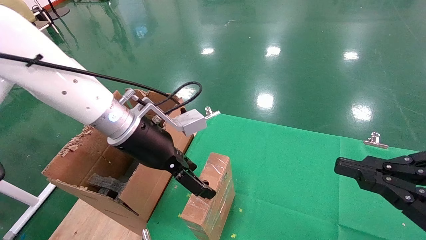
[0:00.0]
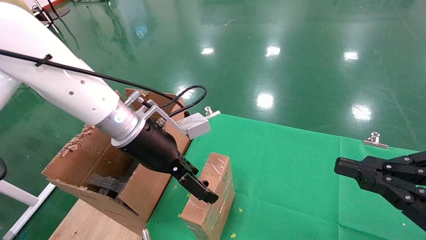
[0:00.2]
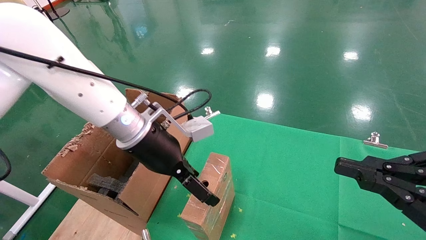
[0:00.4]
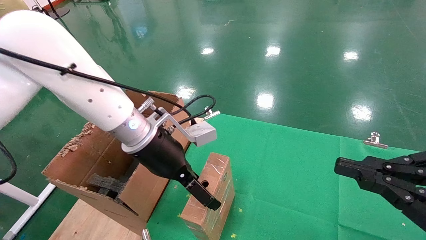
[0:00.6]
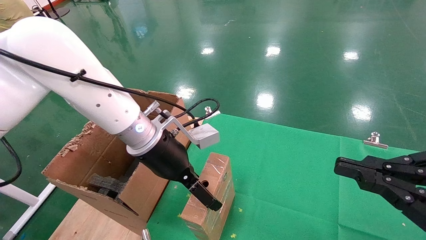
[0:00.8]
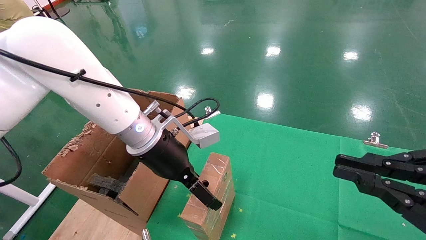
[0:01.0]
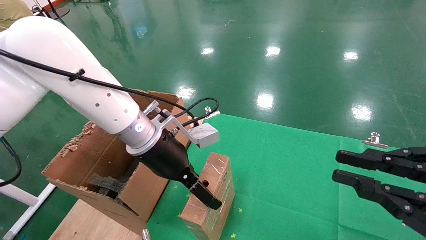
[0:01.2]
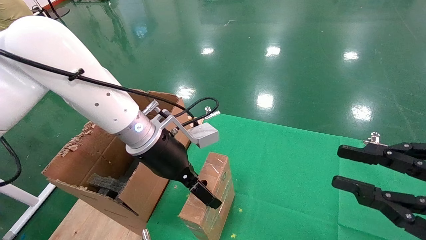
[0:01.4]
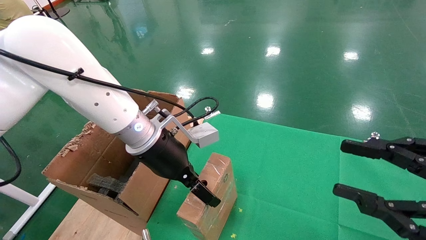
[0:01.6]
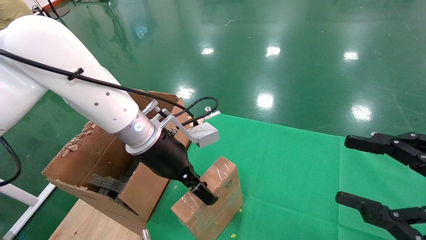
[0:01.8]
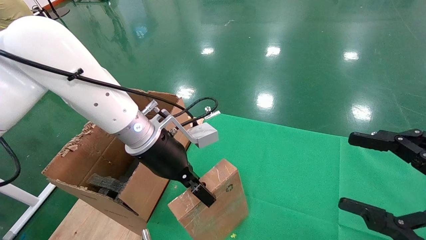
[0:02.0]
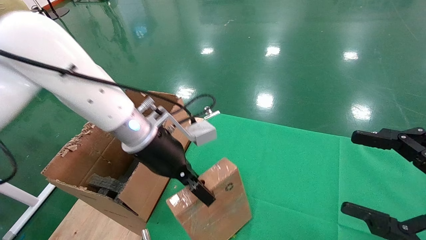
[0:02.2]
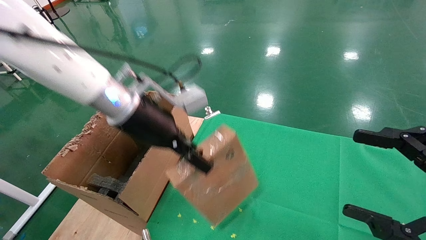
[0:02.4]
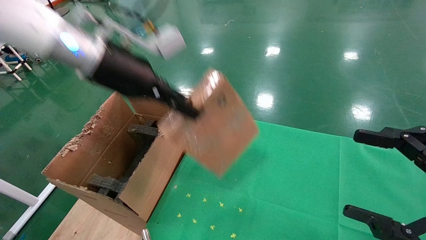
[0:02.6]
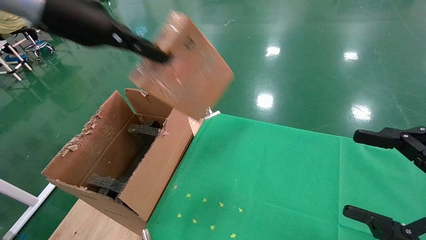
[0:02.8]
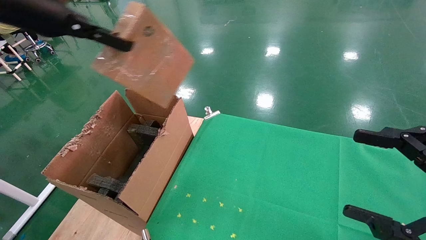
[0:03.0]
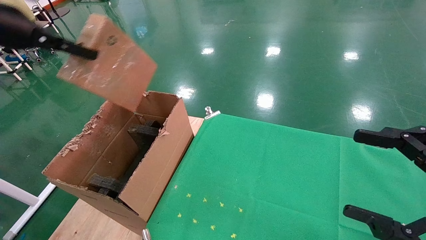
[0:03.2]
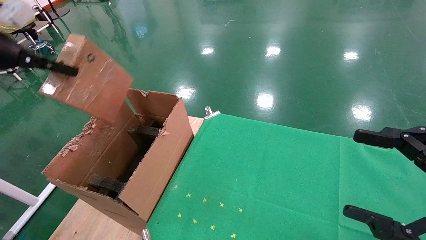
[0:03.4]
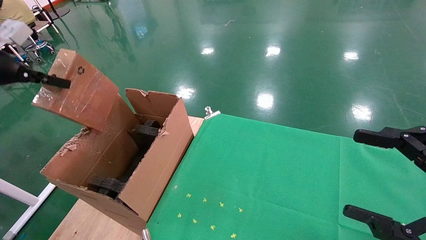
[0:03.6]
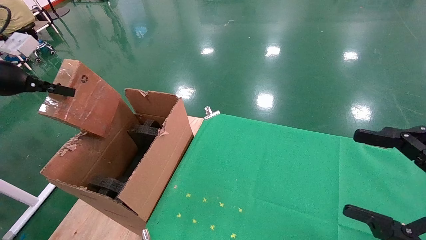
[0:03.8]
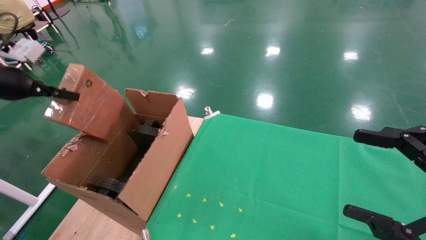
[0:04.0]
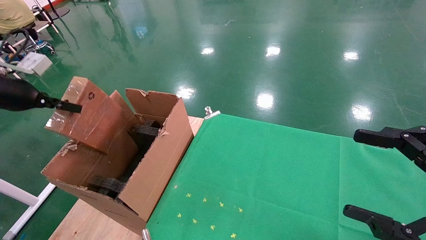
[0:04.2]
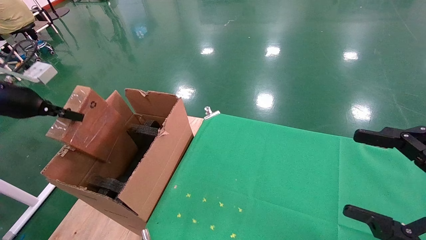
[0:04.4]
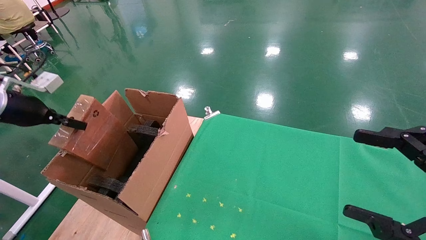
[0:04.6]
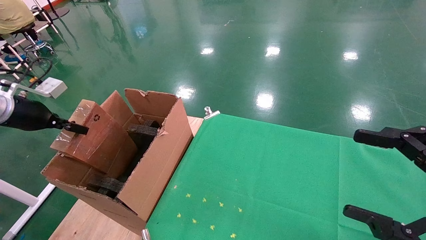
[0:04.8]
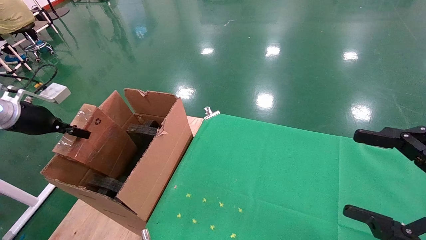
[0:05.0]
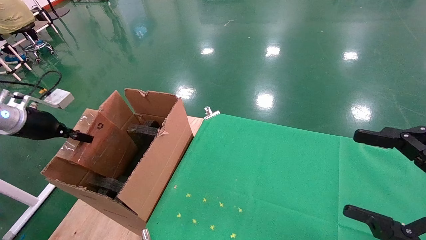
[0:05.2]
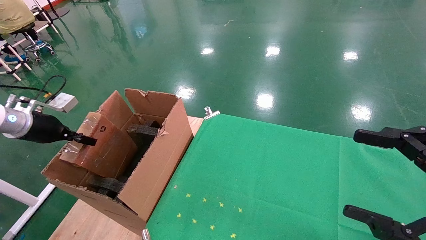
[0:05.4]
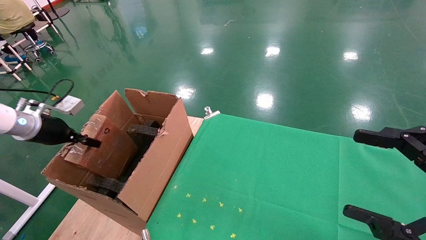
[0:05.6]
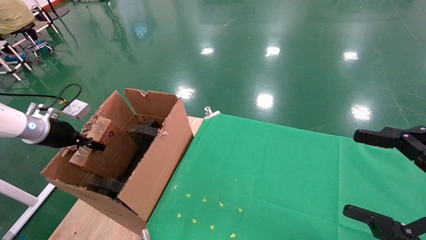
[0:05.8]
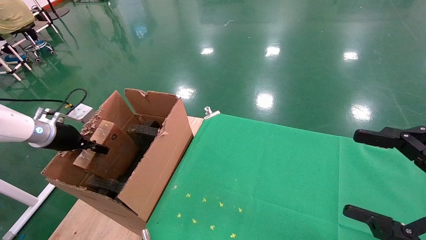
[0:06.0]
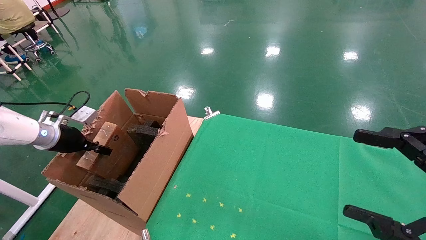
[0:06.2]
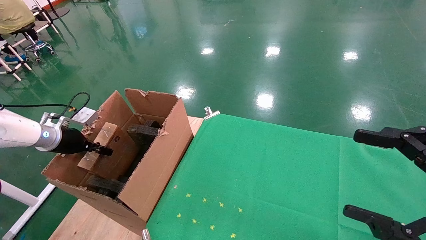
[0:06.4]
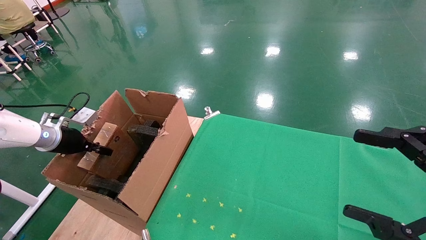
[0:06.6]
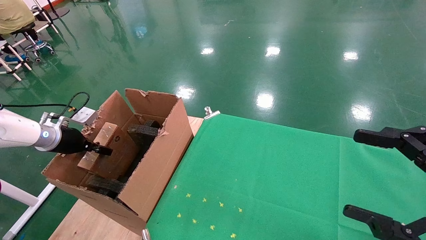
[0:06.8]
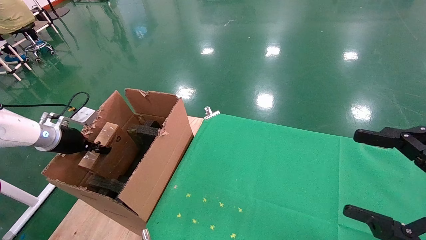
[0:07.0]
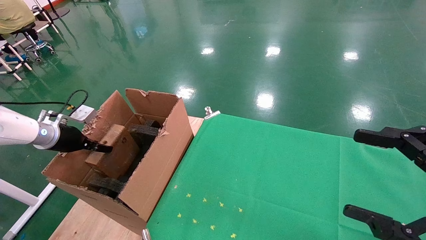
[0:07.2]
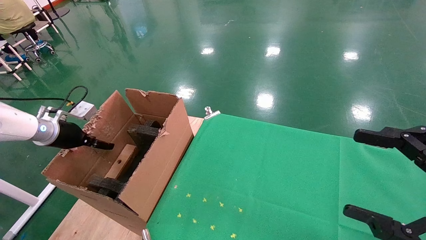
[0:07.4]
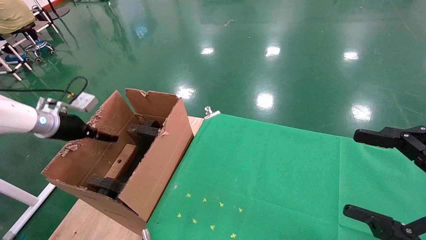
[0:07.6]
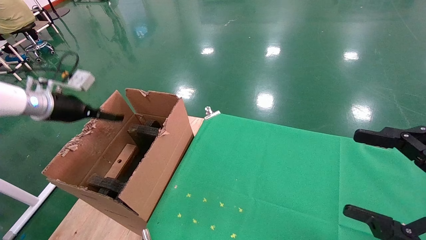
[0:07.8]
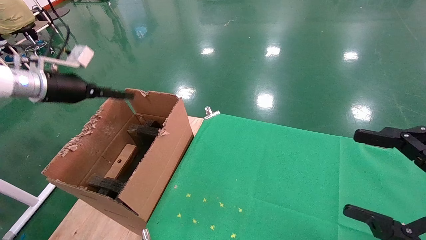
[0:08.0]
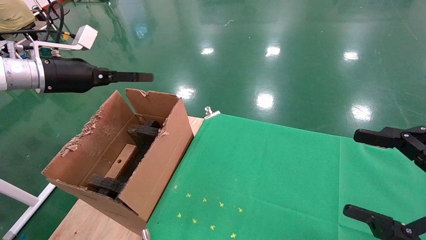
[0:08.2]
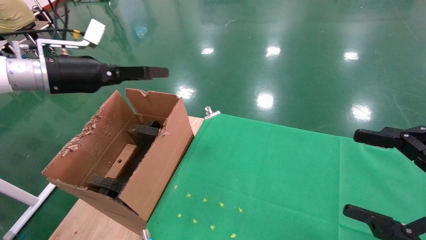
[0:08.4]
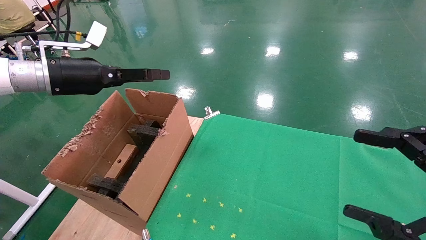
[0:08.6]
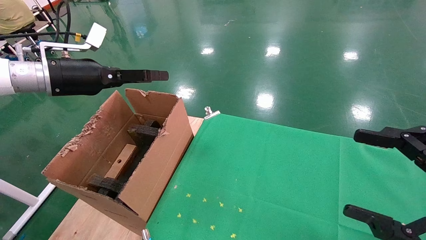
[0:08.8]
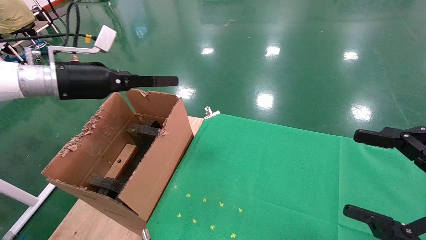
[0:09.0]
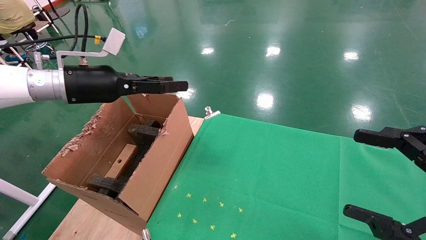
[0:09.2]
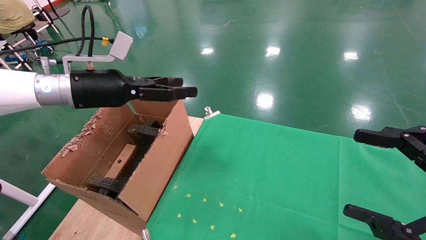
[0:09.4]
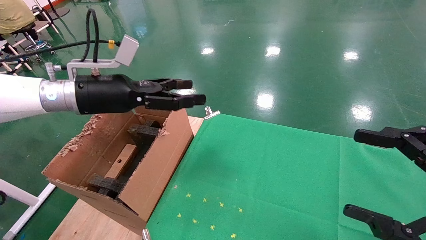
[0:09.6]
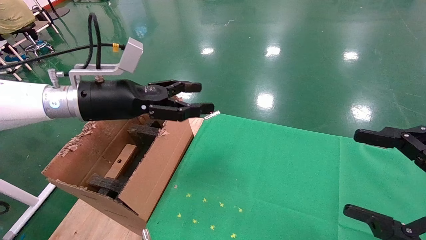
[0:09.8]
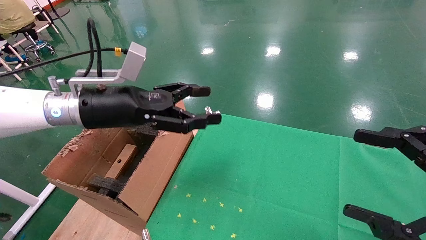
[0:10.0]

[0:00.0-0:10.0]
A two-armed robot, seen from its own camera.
Task of the whole recording: using a robotic arm to pick up a cardboard box and palace it the carton.
Step, 0:00.0 to 0:02.0: Pick up the mouse and the power cord paper box.
Step, 0:02.2 to 0:08.2: Place the mouse and the power cord paper box into the container.
0:00.0 to 0:01.4: The grippers make only small movements.
0:01.4 to 0:02.8: The left gripper travels upward and to the left by some 25 cm, and closes up; the right gripper opens.
0:02.8 to 0:04.2: The left gripper heads to the left and downward, covering about 25 cm.
0:04.2 to 0:05.8: The left gripper goes about 15 cm downward and forward.
0:05.8 to 0:07.2: There are only small adjustments of the grippers.
0:07.2 to 0:08.6: The left gripper travels upward and to the right by approximately 20 cm, and opens up.
0:08.6 to 0:10.0: The left gripper heads to the right, covering approximately 10 cm.

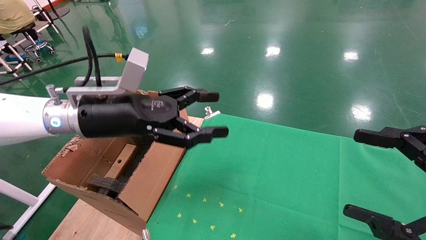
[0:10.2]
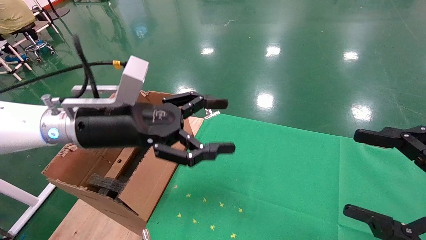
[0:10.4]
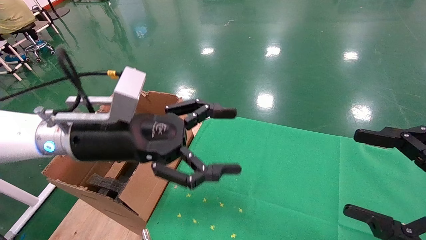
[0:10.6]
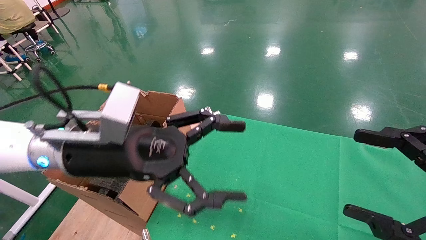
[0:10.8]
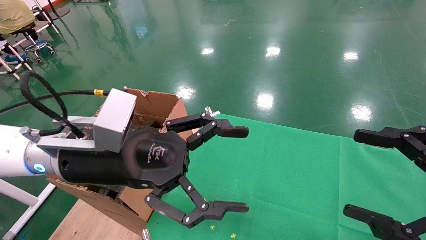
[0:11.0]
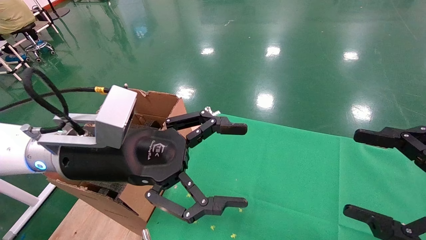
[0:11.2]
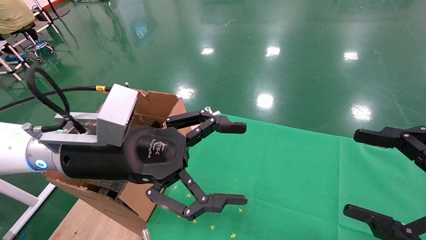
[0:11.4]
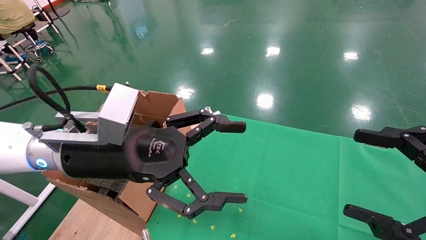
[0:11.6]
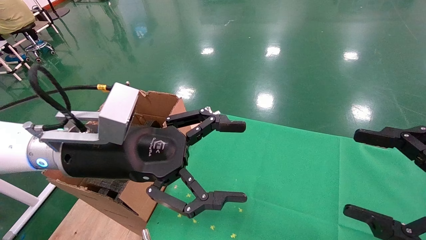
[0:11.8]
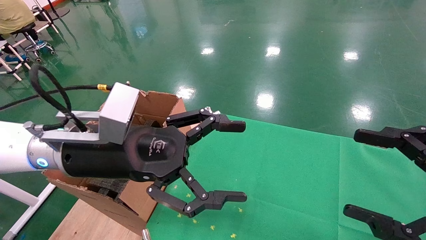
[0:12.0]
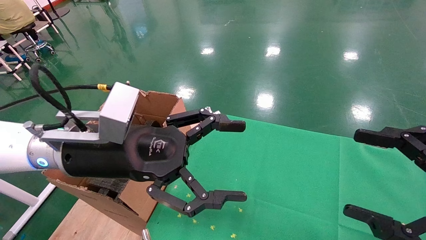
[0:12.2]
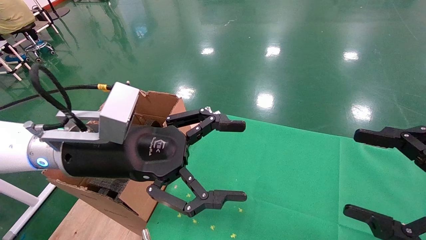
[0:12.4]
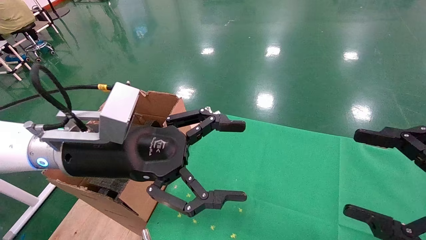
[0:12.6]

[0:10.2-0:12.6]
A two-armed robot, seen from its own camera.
Task of the whole recording: using a robotic arm to pick up a cardboard box and palace it the carton.
0:10.2 to 0:11.4: The left gripper goes about 5 cm backward.
0:11.4 to 0:12.6: The two grippers keep their place.

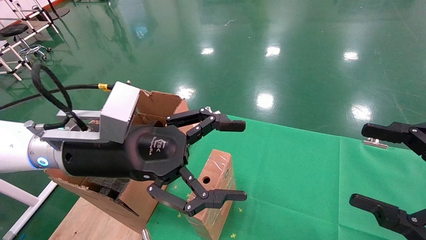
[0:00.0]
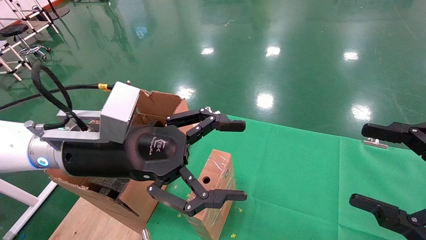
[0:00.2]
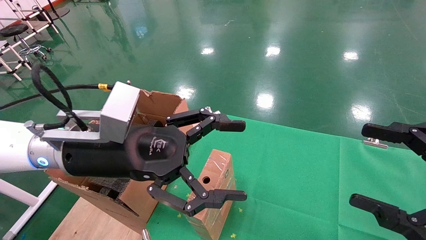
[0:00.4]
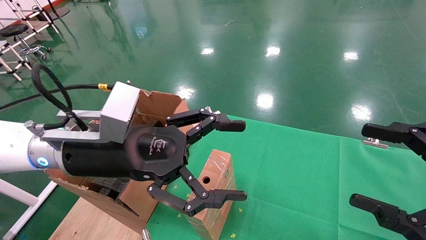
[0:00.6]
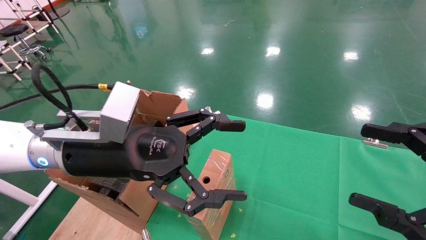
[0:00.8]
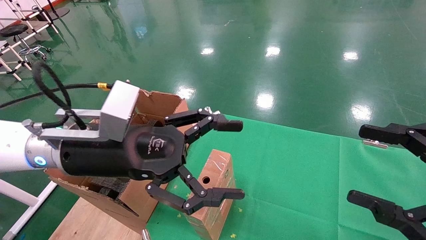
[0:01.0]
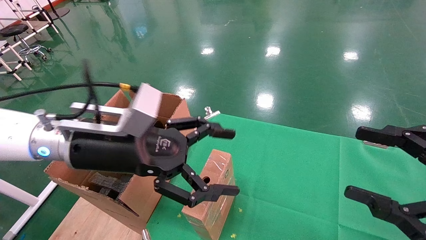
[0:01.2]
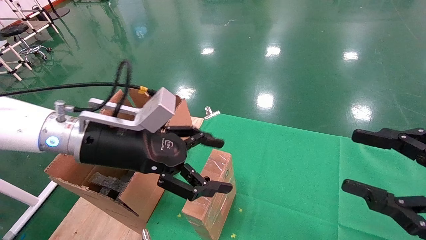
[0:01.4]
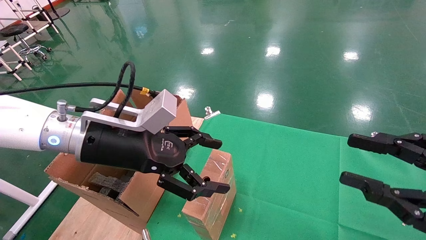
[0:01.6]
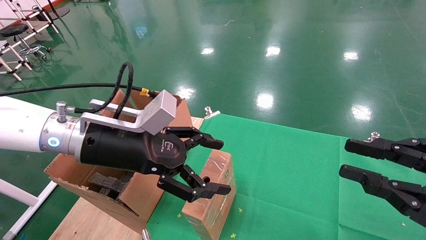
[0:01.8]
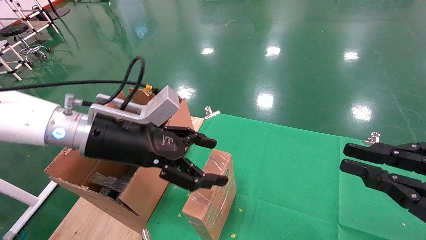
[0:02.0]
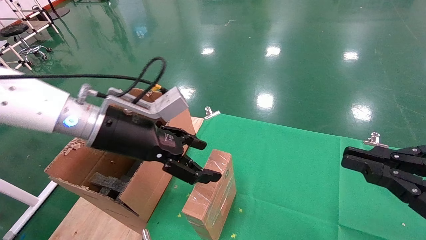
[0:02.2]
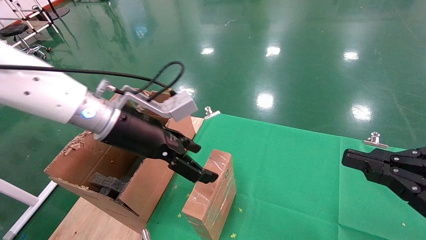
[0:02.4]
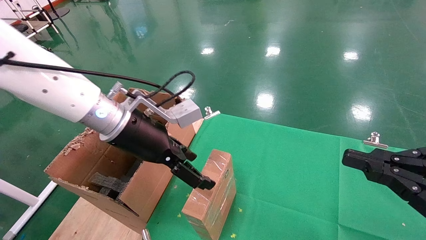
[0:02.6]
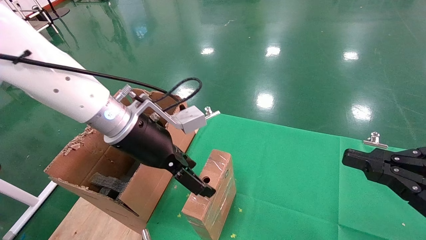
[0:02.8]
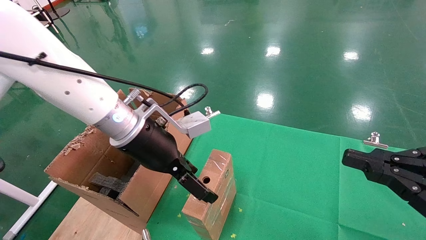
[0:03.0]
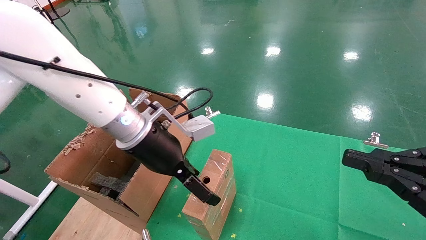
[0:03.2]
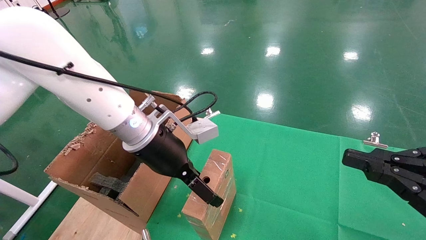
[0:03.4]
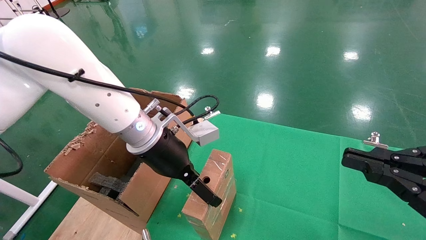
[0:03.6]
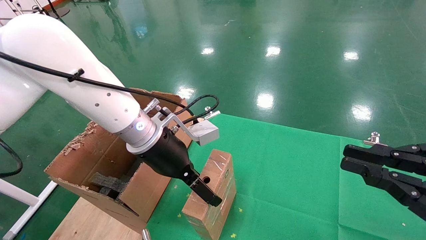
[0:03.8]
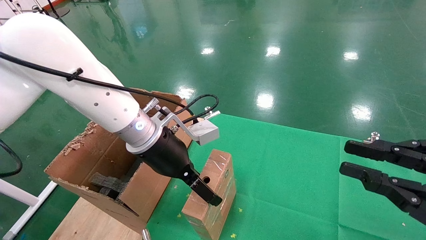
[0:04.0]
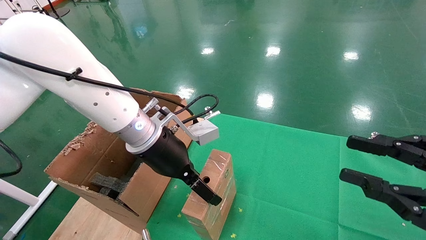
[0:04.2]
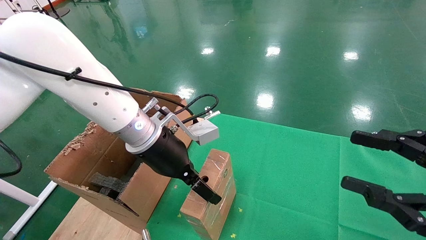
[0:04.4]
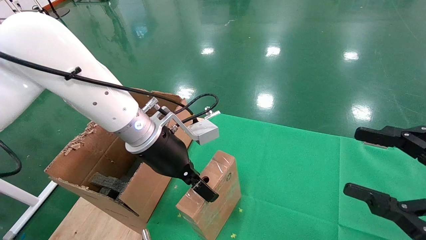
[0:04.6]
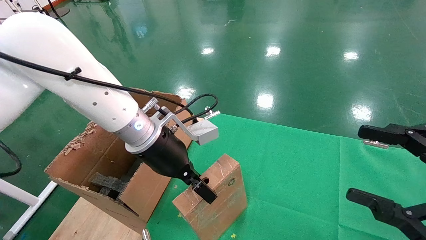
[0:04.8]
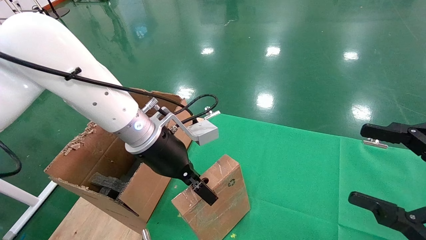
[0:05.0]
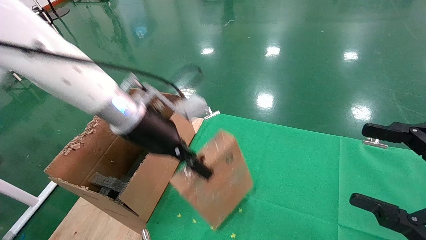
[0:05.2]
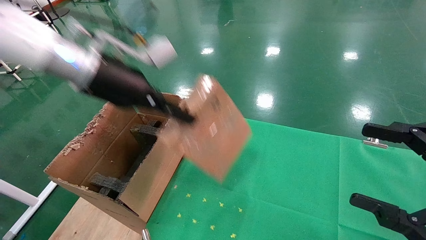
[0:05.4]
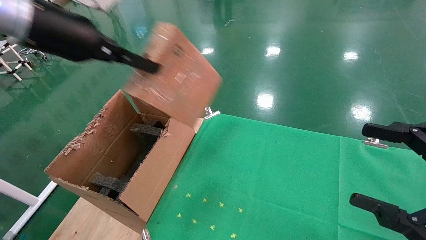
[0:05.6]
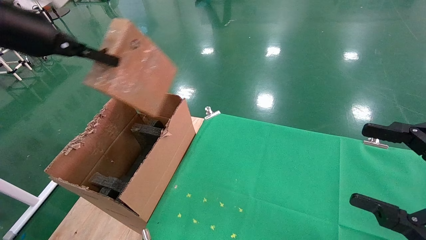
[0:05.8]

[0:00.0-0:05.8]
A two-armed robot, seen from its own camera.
Task of the whole recording: using a robotic arm to pick up a cardboard box and palace it the carton.
Step, 0:01.4 to 0:04.8: Pick up the mouse and the power cord paper box.
0:01.4 to 0:02.8: The left gripper changes place by approximately 5 cm. Meanwhile the right gripper closes.
0:02.8 to 0:04.4: The right gripper opens its fingers.
0:04.4 to 0:05.8: The right gripper opens up. Meanwhile the left gripper heads to the left and upward, covering approximately 30 cm, and closes up.
